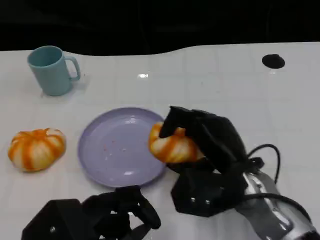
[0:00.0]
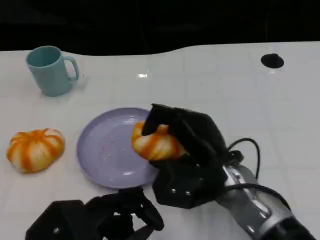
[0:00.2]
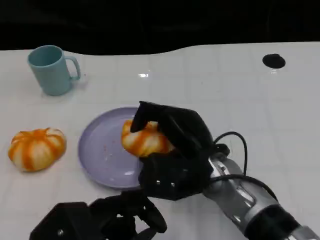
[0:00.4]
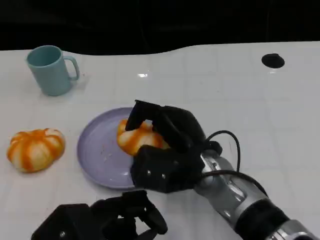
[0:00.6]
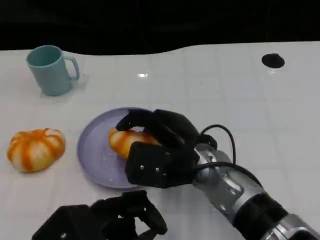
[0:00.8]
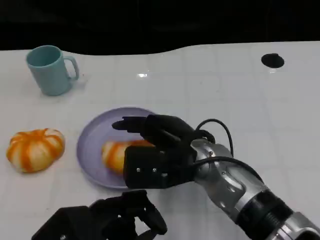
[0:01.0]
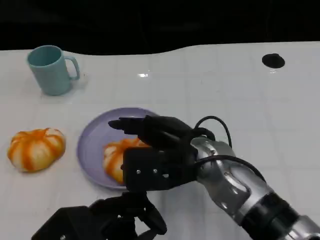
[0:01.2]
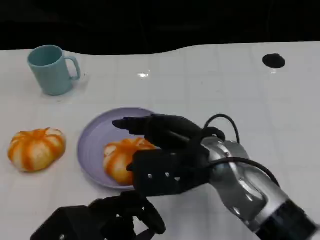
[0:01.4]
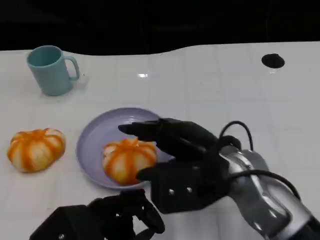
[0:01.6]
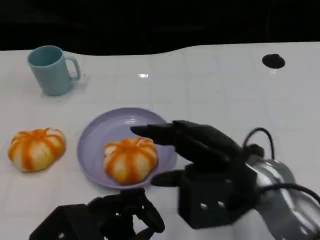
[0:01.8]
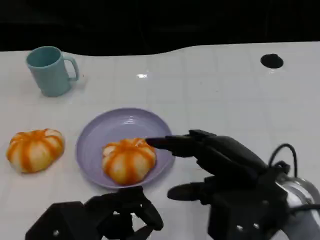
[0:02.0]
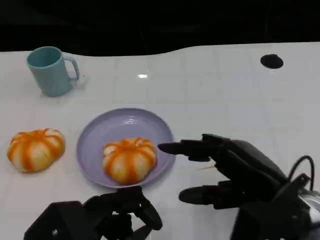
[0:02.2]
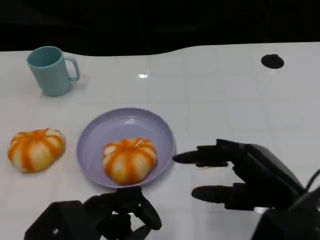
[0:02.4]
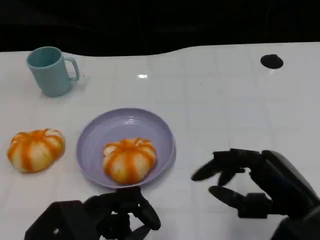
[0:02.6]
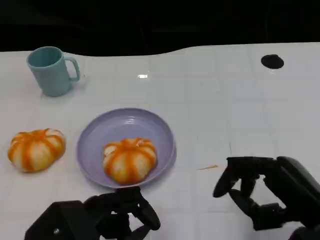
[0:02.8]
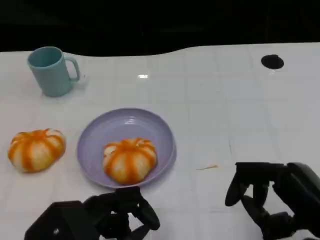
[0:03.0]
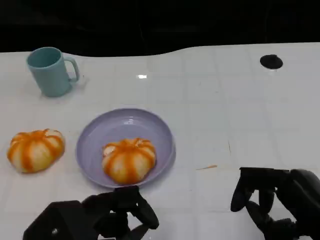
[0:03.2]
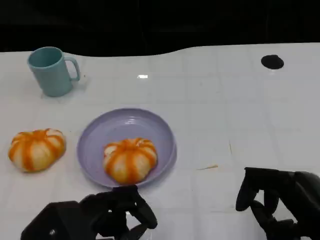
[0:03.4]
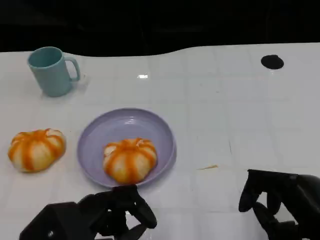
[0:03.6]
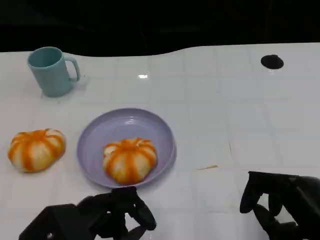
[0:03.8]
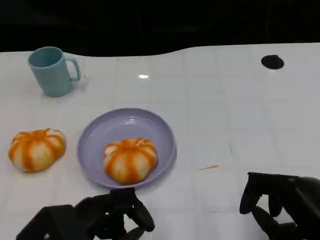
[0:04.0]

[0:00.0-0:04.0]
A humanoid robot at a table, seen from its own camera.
Task of the whole recording: Grasp the bread from the table and place it into the plate.
0:00.0 to 0:01.4: The right hand ends up about 5 cm from where it was.
0:01.4 to 0:02.6: The right hand goes some 15 cm to the right and backward.
0:02.6 to 0:04.0: There are only small adjustments of the hands.

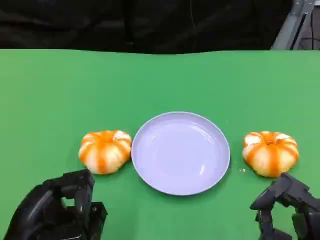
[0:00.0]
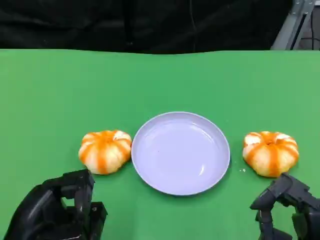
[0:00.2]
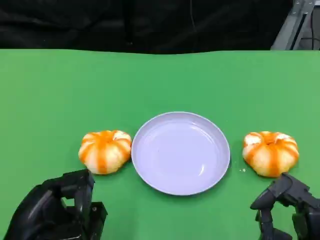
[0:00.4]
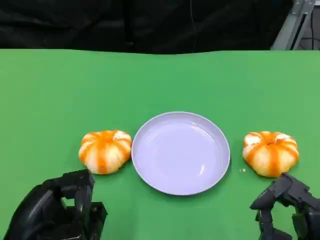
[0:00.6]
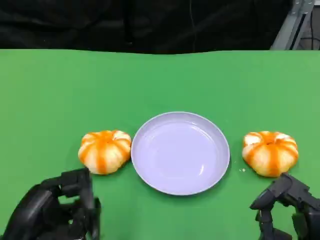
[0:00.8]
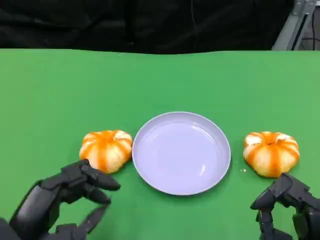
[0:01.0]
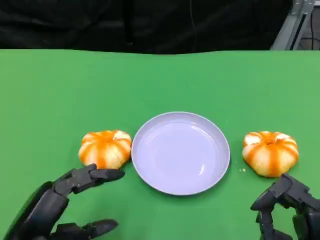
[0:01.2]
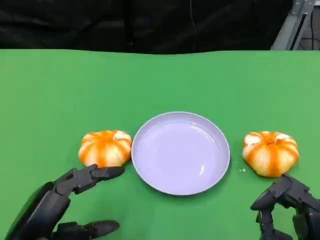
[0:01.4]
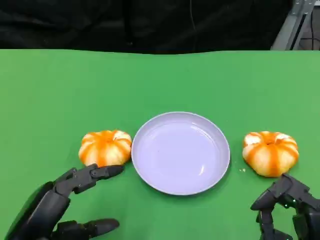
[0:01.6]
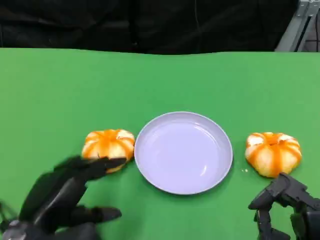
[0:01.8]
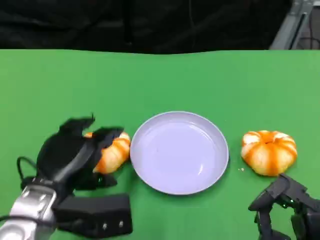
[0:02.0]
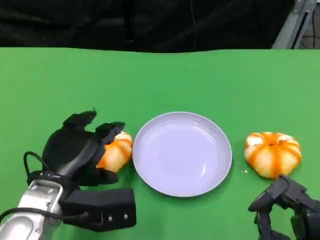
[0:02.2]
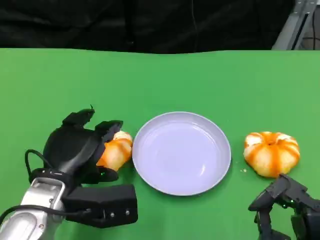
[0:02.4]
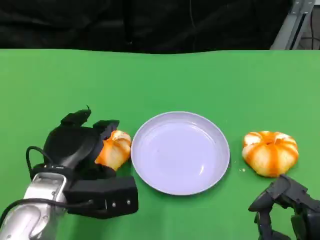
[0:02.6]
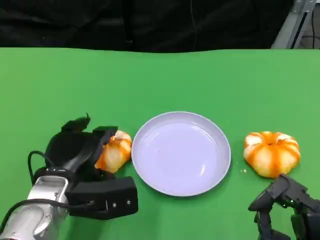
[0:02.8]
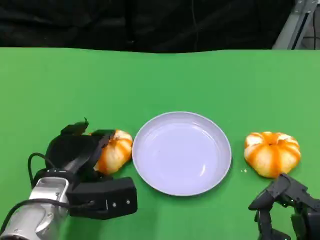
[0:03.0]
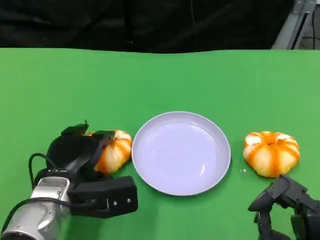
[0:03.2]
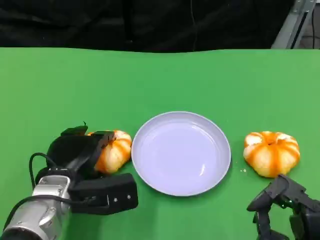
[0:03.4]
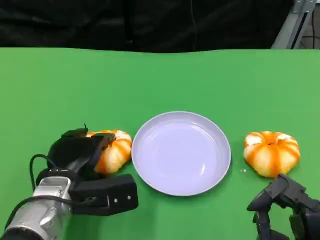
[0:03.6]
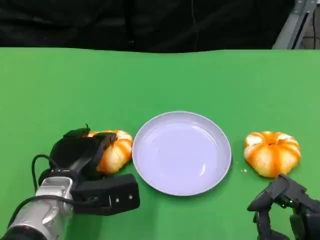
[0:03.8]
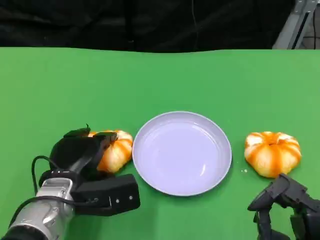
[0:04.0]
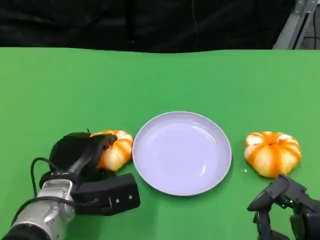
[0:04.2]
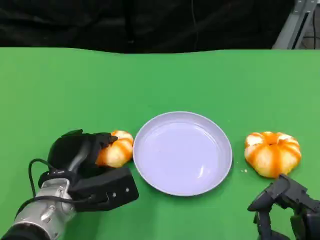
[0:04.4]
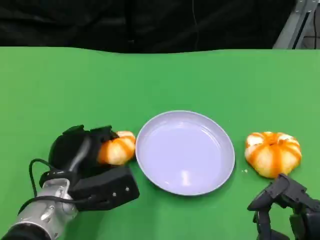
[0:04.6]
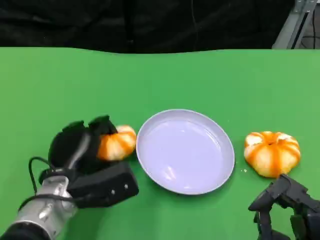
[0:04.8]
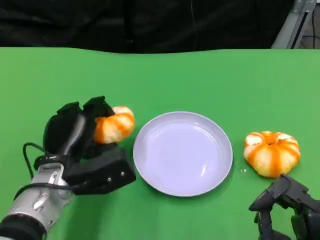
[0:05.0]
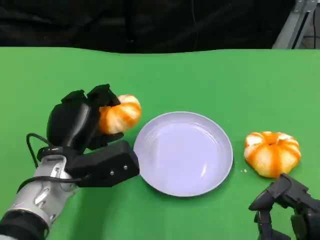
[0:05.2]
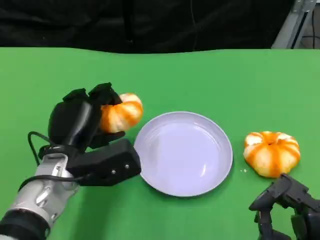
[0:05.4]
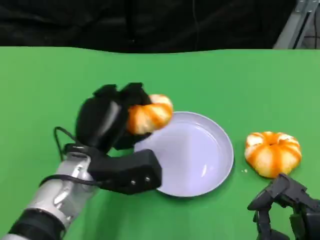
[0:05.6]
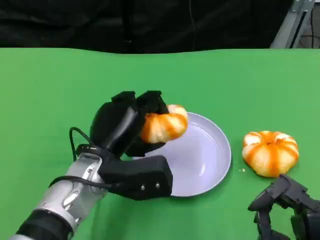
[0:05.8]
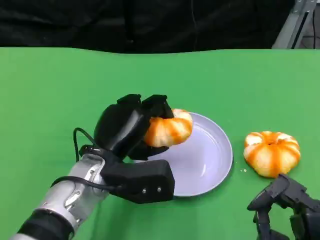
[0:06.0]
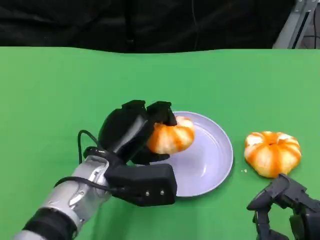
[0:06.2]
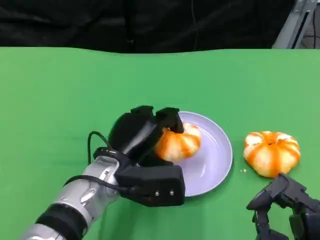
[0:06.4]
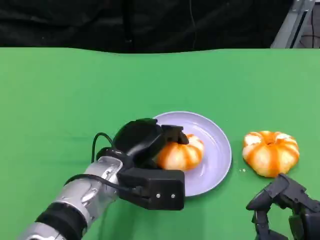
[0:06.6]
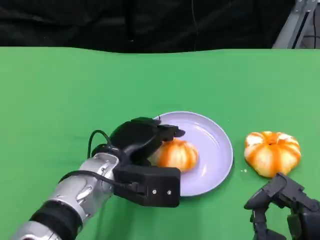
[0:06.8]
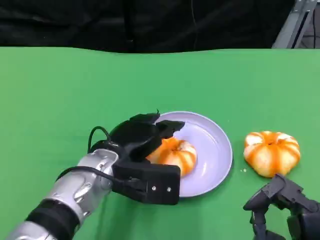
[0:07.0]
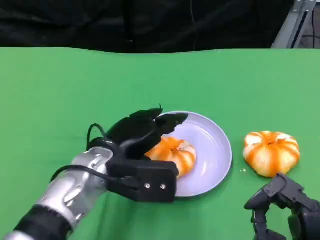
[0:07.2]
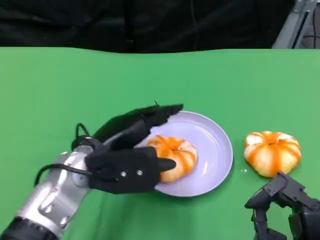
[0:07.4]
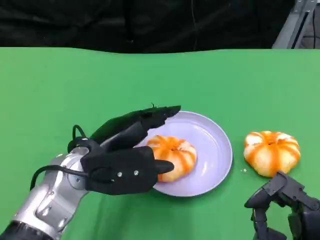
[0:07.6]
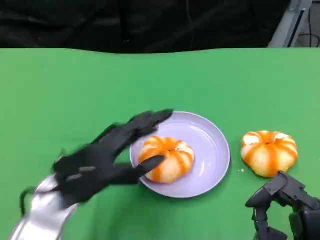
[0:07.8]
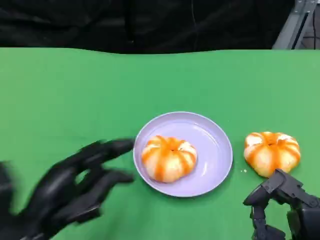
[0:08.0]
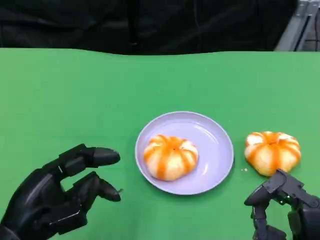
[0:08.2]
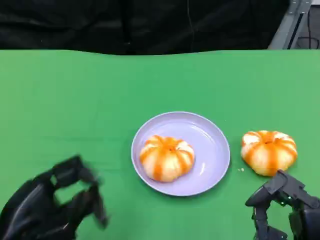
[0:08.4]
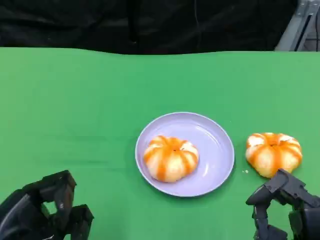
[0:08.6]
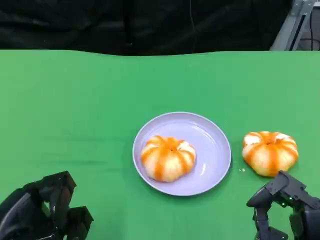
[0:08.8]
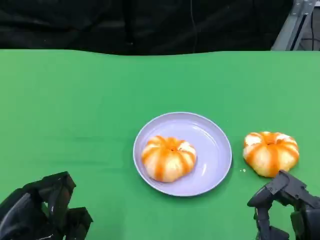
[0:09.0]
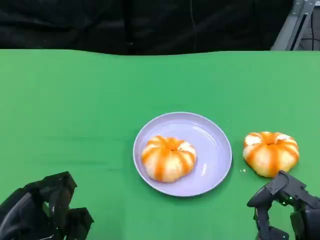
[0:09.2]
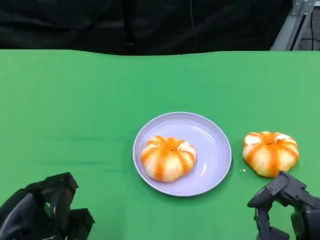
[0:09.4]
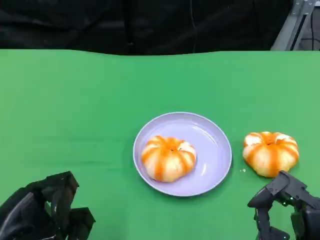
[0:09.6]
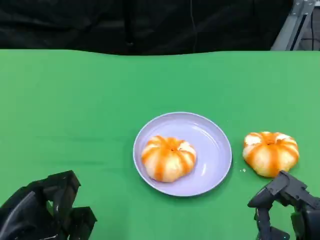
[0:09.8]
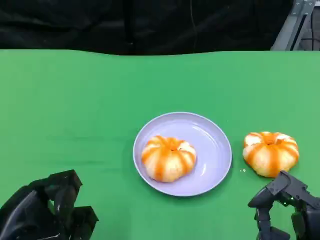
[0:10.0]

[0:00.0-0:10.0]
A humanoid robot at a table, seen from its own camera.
Task of the whole recording: Grasp the bread from the table and place it into the plate.
0:01.4 to 0:02.8: The left hand heads forward, covering some 10 cm.
0:02.8 to 0:04.2: The hands make only small movements.
0:04.2 to 0:05.8: The left hand moves upward and to the right, some 10 cm.
0:07.2 to 0:08.6: The left hand shifts approximately 20 cm to the left and backward.
0:08.6 to 0:10.0: Both hands stay put.

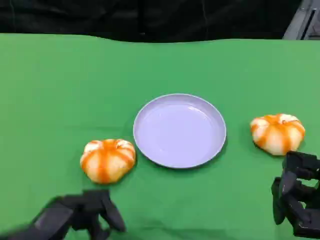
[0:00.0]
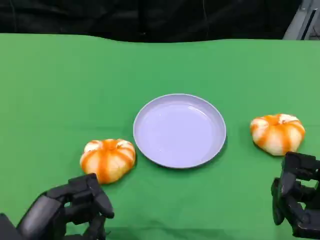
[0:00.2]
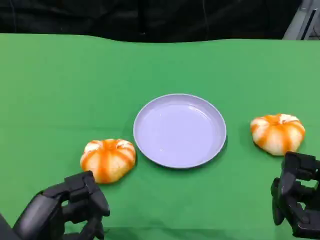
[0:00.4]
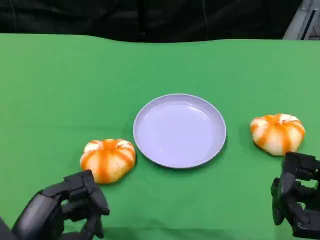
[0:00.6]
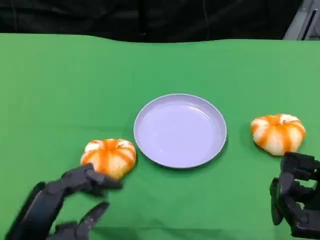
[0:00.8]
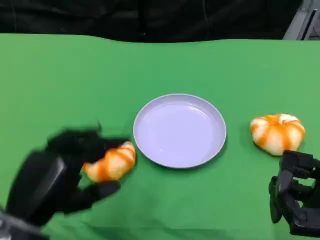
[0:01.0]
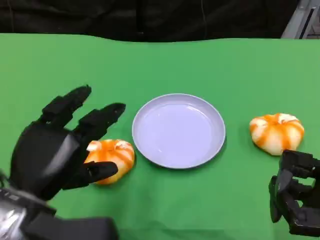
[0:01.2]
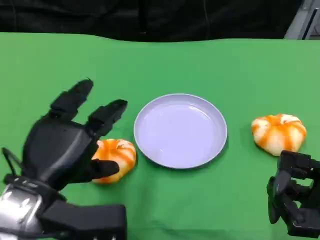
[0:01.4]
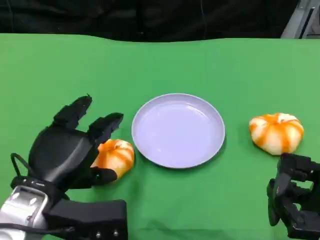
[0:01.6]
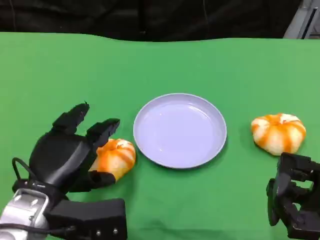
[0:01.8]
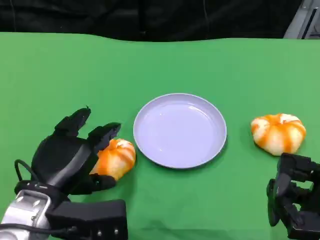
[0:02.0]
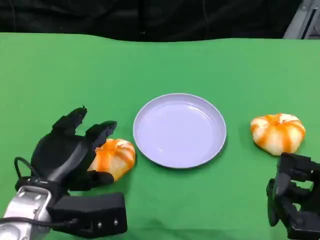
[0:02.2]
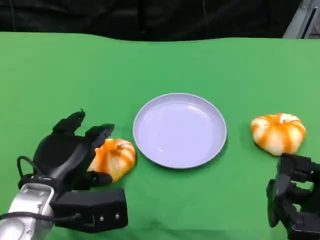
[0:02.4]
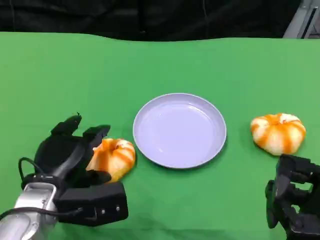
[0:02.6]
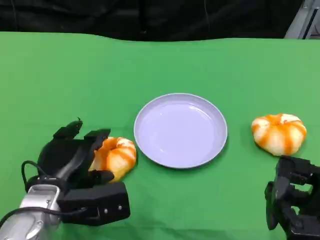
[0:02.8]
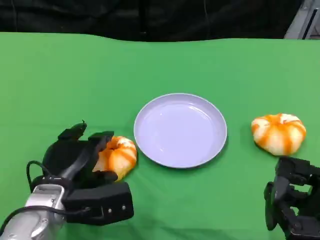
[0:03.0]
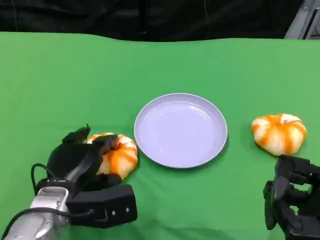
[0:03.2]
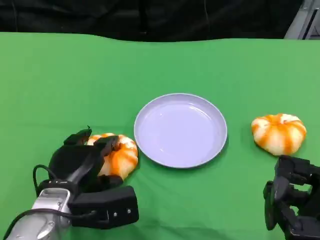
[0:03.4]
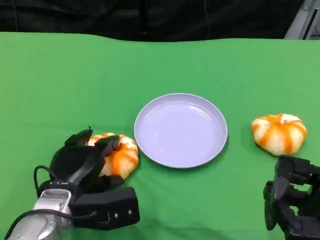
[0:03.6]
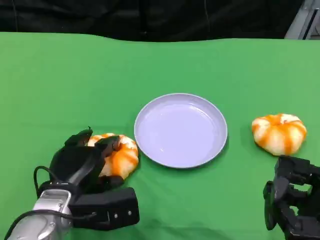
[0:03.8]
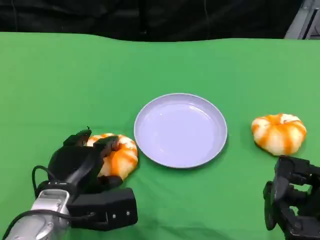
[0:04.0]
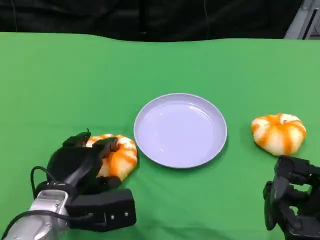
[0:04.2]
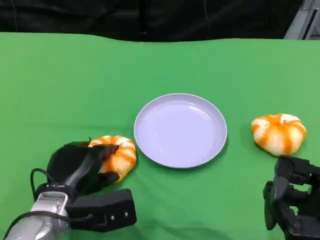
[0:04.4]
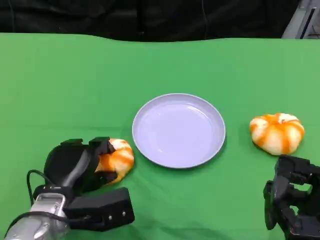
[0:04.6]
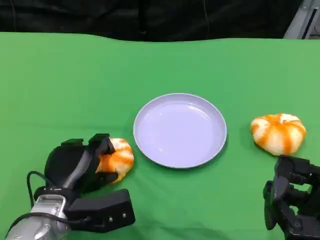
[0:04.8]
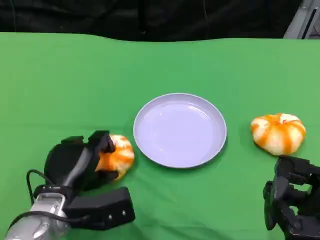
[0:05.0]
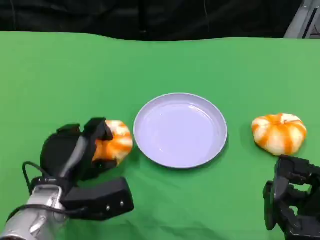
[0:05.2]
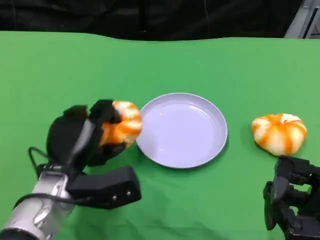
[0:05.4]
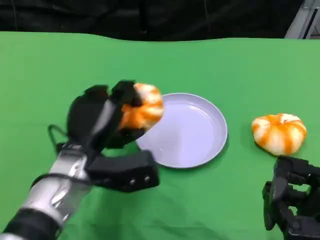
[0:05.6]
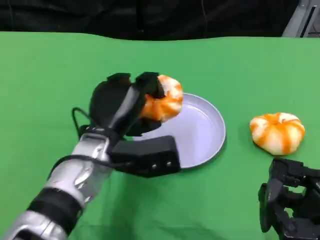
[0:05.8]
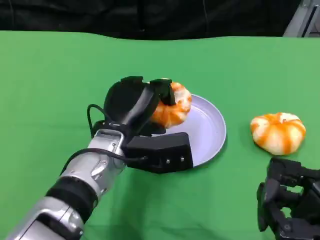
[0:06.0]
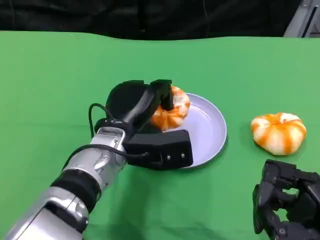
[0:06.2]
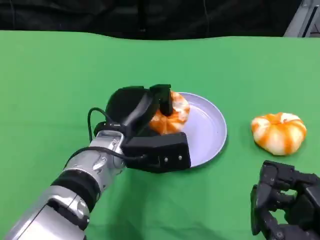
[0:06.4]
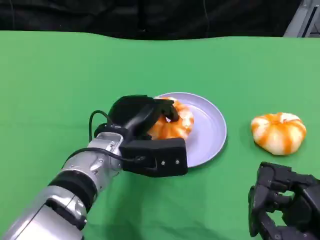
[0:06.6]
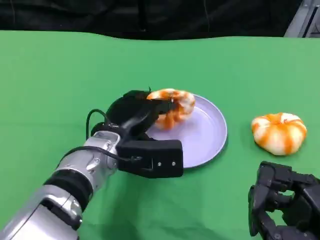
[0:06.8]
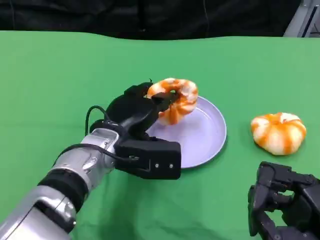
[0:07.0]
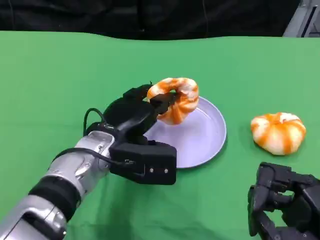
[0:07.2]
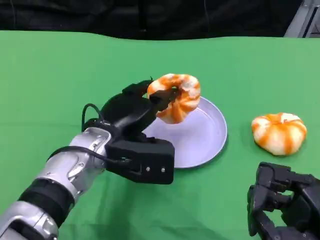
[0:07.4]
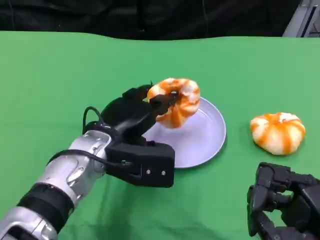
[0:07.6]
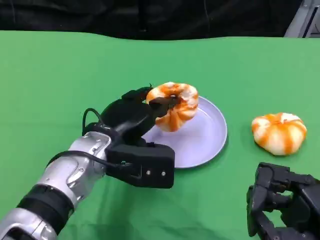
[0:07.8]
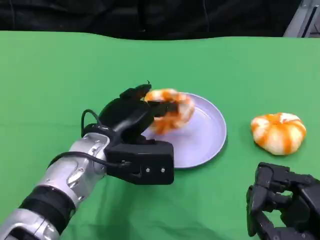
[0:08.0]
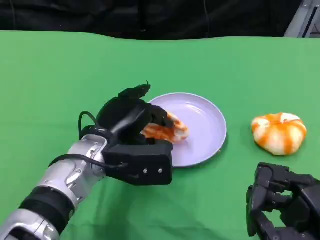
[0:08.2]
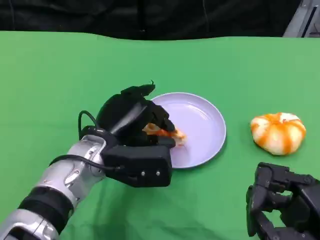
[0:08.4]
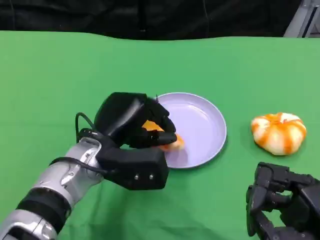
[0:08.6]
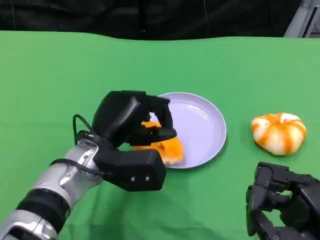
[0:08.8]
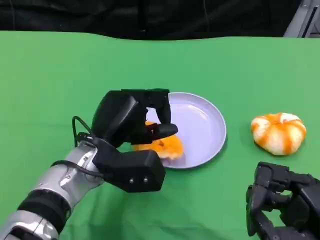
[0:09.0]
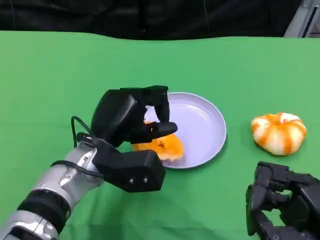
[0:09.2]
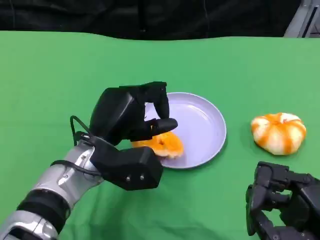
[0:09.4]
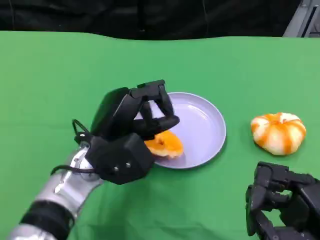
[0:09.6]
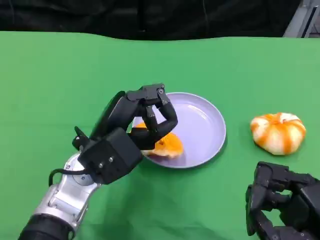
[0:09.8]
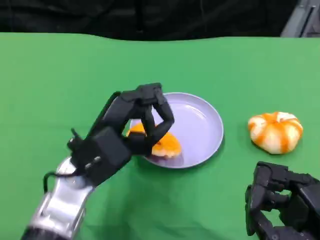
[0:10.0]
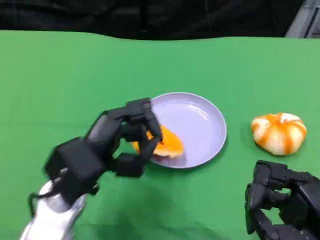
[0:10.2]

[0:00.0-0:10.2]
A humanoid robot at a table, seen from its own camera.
Task of the whole recording: Grasp the bread from the table and place it into the plate.
0:00.0 to 0:01.4: The left hand heads forward, covering some 10 cm.
0:01.4 to 0:03.0: The left hand goes roughly 10 cm downward.
0:03.0 to 0:04.4: Neither hand changes place.
0:04.4 to 0:05.8: The left hand travels upward and to the right by approximately 10 cm.
0:08.8 to 0:10.2: The left hand travels backward by approximately 5 cm.
